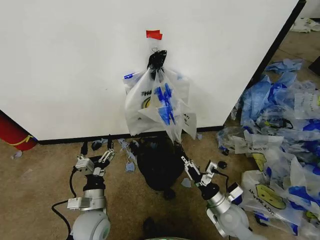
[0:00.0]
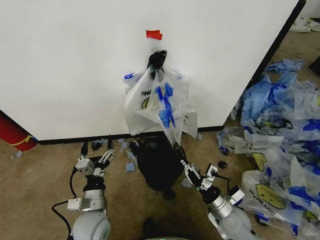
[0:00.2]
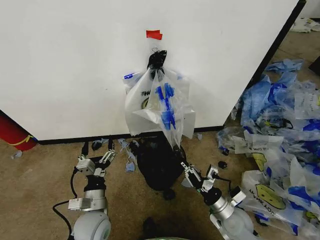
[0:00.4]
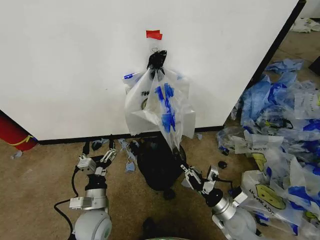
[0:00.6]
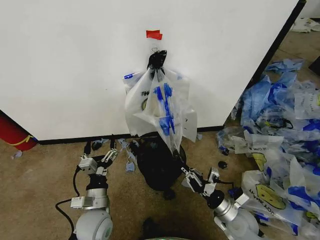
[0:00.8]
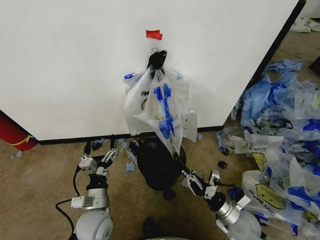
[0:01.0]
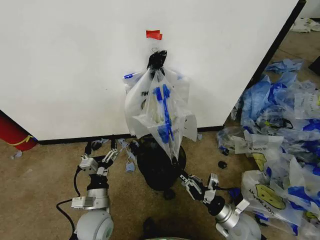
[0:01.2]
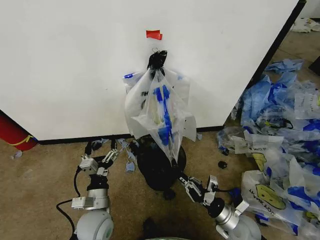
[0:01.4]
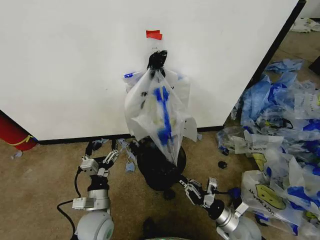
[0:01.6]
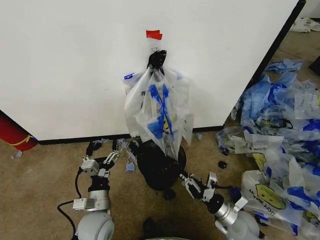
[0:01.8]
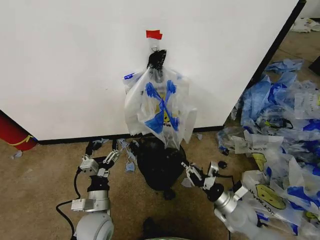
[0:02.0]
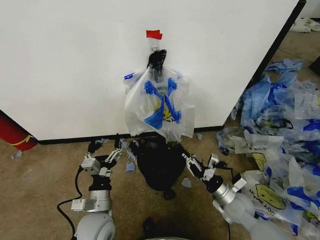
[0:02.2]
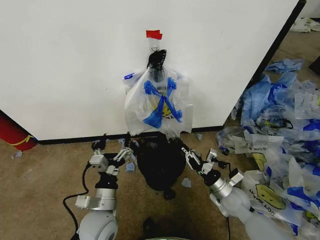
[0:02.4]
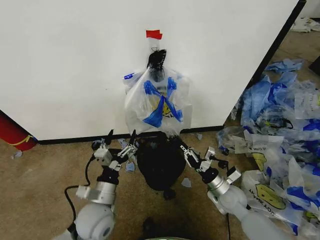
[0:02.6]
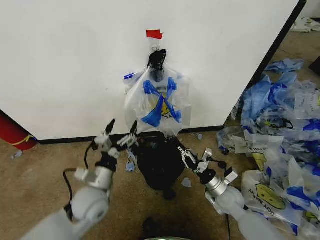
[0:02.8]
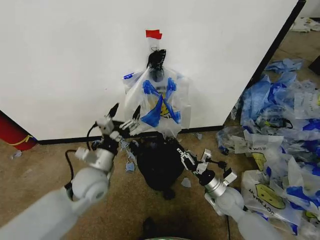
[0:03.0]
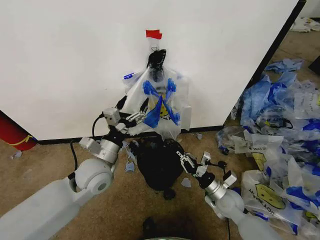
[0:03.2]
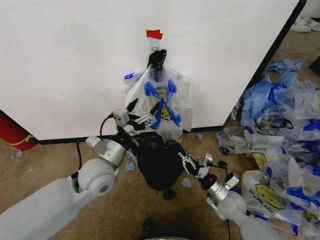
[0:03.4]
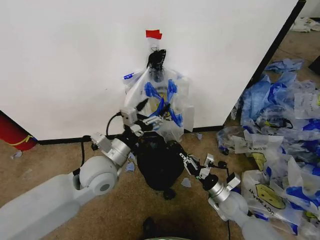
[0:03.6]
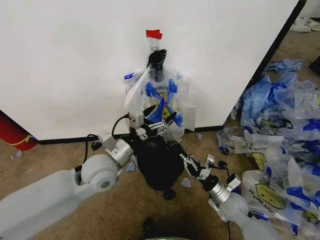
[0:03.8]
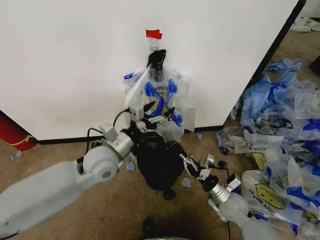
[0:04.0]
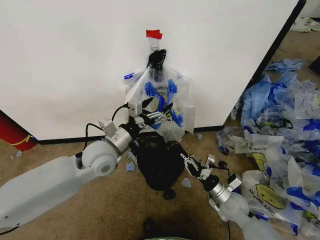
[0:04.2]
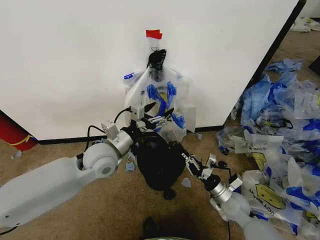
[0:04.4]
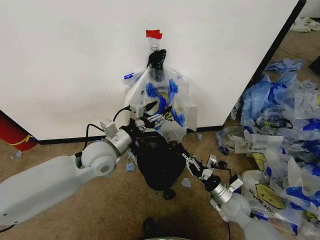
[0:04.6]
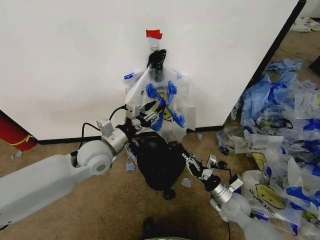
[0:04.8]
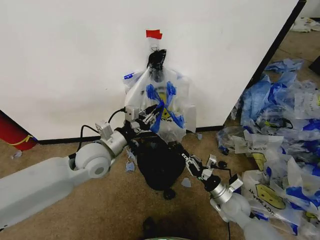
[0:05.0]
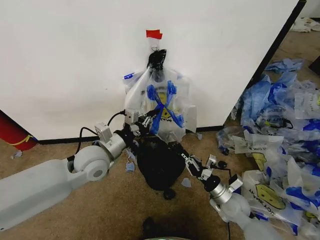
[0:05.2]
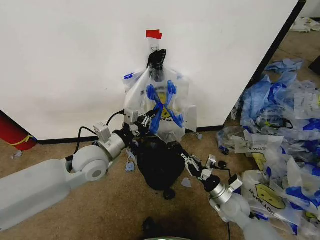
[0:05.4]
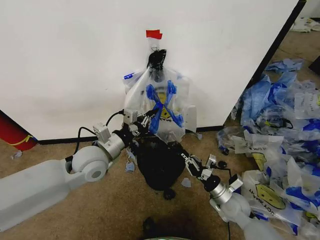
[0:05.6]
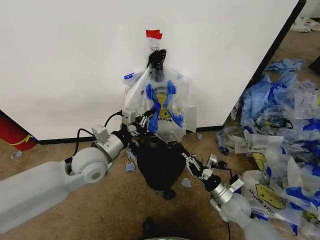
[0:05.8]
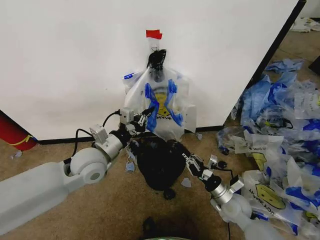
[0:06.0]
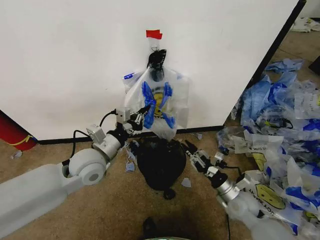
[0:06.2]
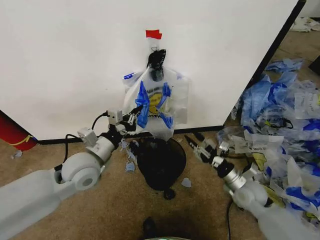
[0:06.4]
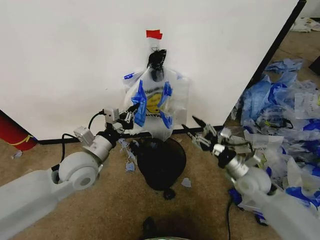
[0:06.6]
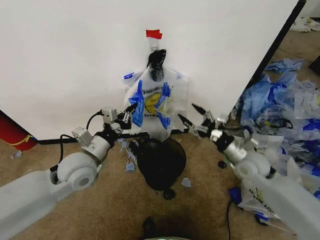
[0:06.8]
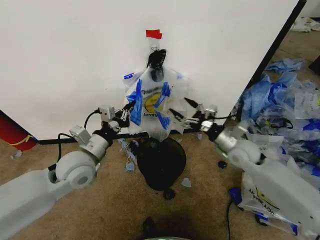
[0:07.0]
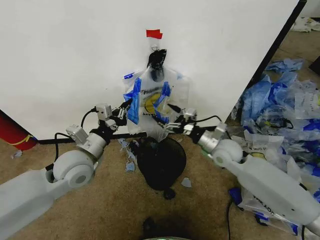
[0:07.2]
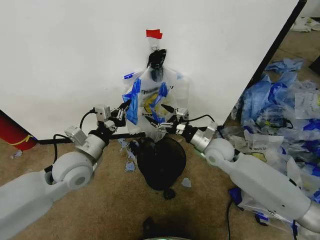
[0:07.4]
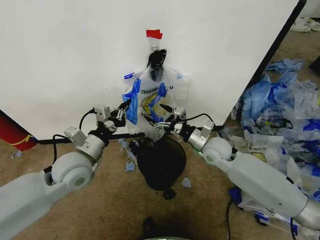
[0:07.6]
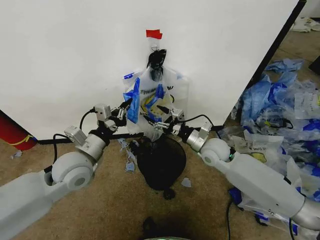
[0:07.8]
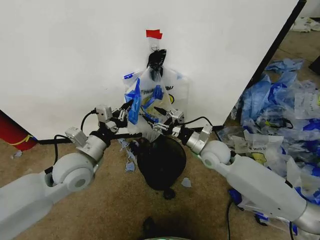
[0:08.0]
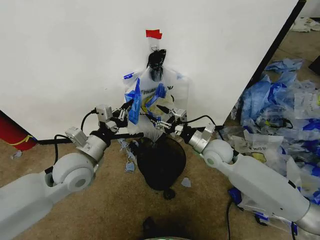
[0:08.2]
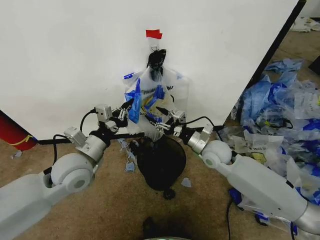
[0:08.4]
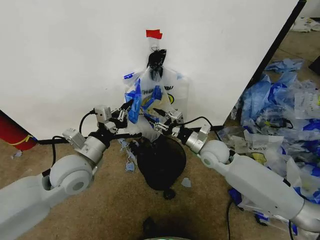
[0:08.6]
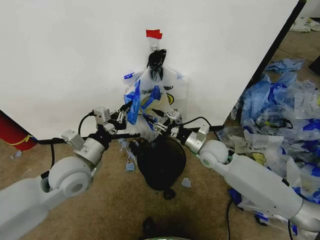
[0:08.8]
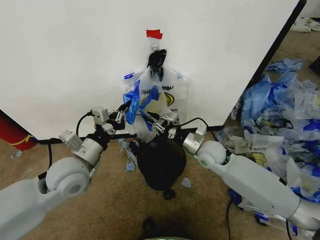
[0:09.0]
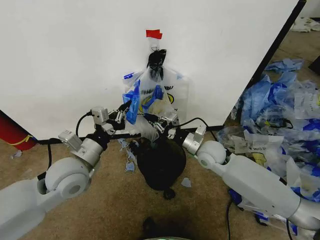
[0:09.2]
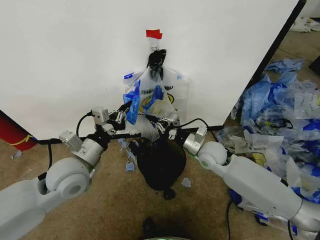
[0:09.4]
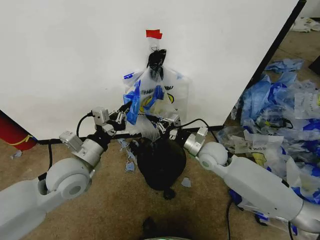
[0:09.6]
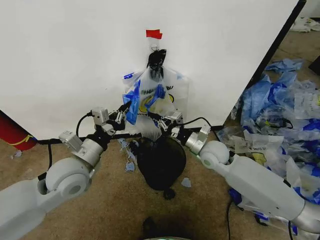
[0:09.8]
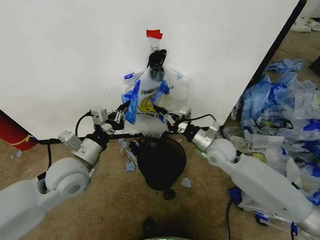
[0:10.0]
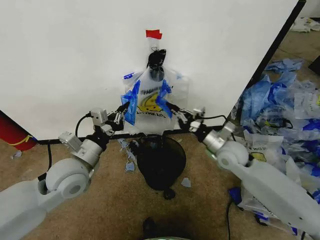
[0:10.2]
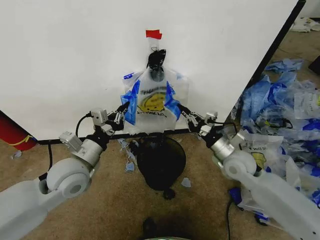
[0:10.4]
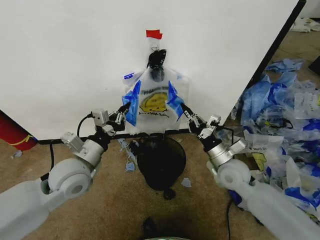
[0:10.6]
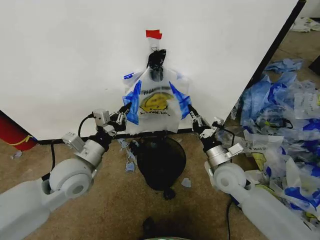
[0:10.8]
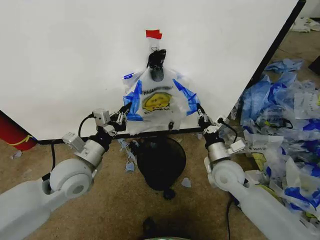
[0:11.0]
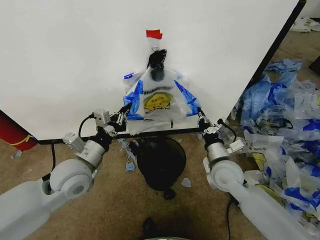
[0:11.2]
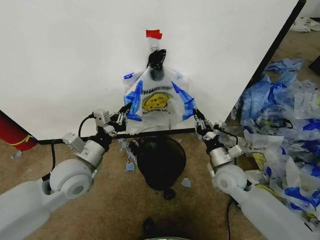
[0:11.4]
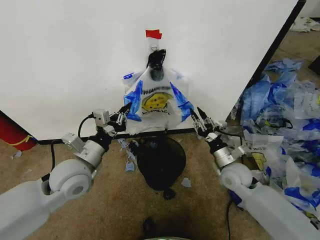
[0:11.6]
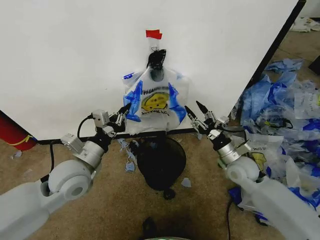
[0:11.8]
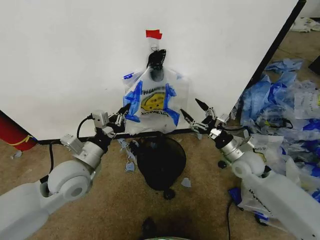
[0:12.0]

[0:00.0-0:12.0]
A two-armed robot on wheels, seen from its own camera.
Task of the whole recording: Pick up the garbage bag from the wall and place it over the trash bin.
0:00.0 to 0:01.6: The right gripper changes place by roughly 5 cm.
0:01.6 to 0:03.0: The right gripper moves forward, some 10 cm. Meanwhile the left gripper heads upward and forward, covering about 10 cm.
0:03.0 to 0:04.4: The left gripper travels upward and forward by about 10 cm.
0:04.4 to 0:06.0: The left gripper closes.
0:06.0 to 0:07.6: The right gripper heads upward, forward and to the left, covering some 20 cm, and opens up.
0:07.6 to 0:09.0: The right gripper closes its fingers.
0:09.0 to 0:10.4: The right gripper is displaced to the right by some 10 cm.
0:10.4 to 0:12.0: The right gripper opens.

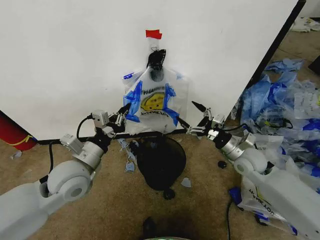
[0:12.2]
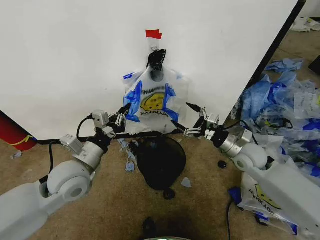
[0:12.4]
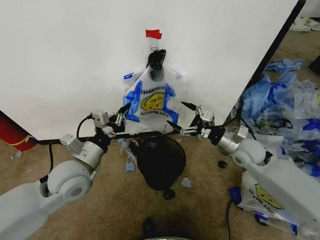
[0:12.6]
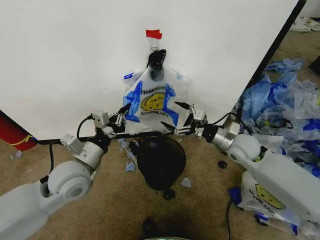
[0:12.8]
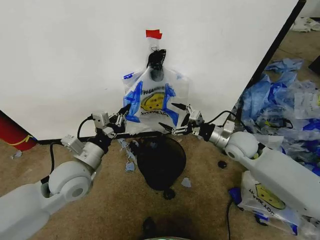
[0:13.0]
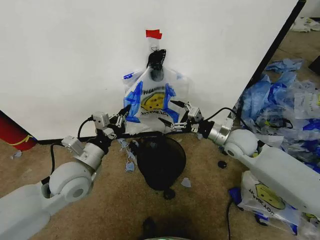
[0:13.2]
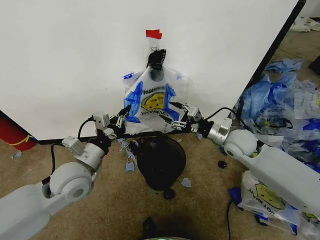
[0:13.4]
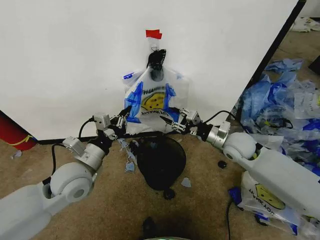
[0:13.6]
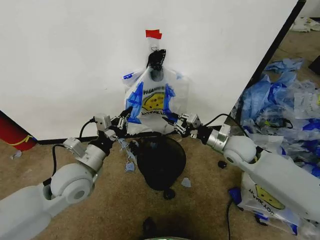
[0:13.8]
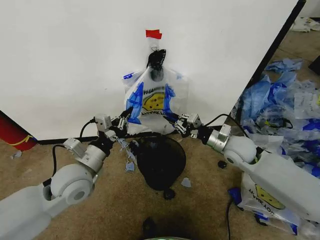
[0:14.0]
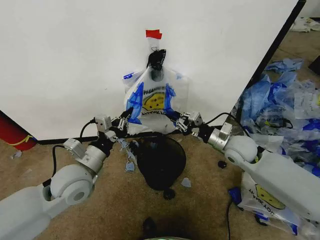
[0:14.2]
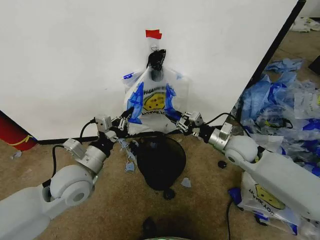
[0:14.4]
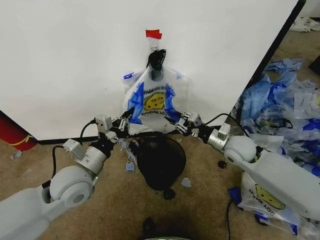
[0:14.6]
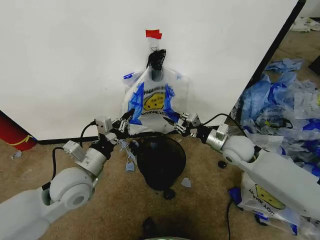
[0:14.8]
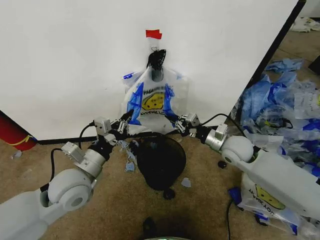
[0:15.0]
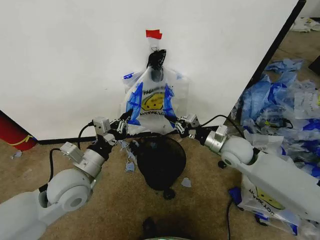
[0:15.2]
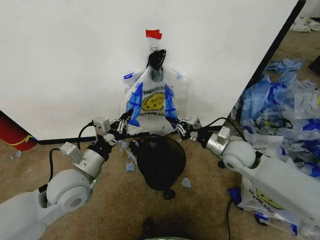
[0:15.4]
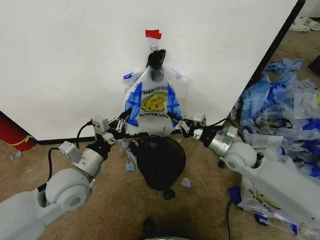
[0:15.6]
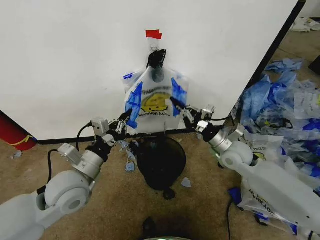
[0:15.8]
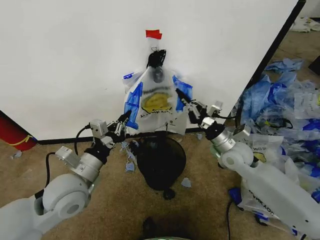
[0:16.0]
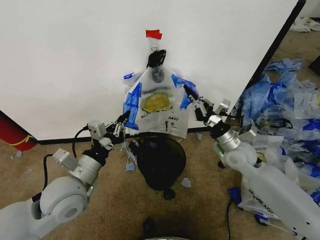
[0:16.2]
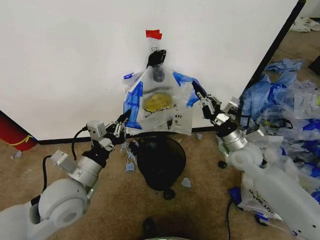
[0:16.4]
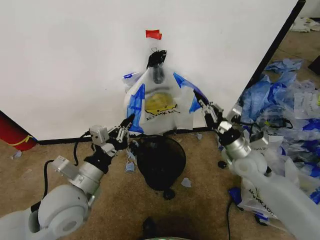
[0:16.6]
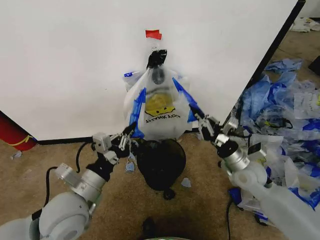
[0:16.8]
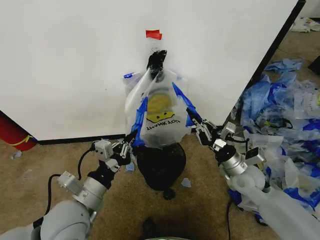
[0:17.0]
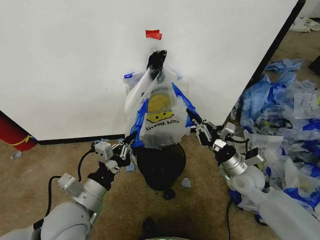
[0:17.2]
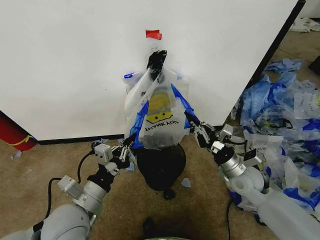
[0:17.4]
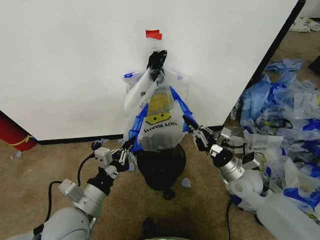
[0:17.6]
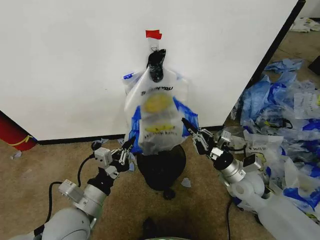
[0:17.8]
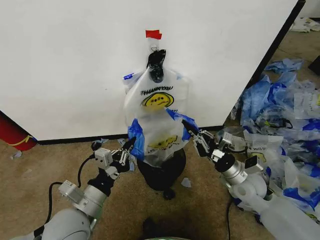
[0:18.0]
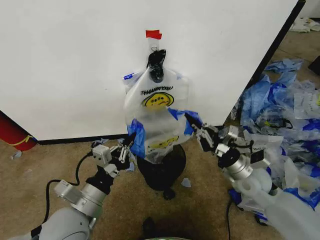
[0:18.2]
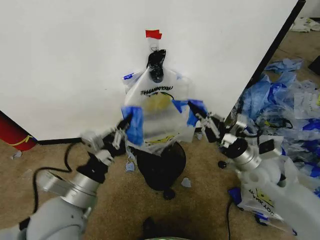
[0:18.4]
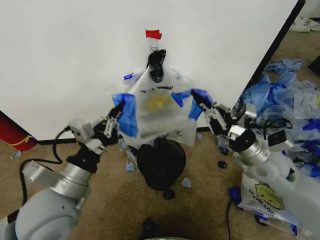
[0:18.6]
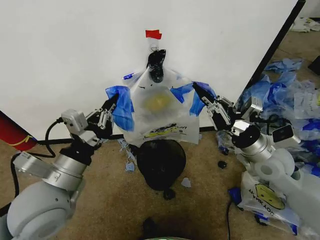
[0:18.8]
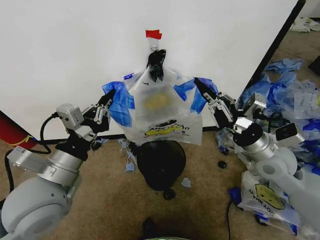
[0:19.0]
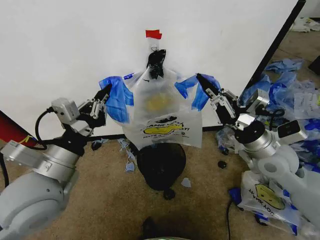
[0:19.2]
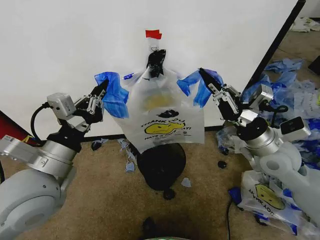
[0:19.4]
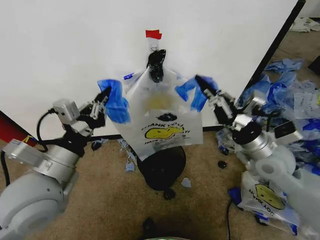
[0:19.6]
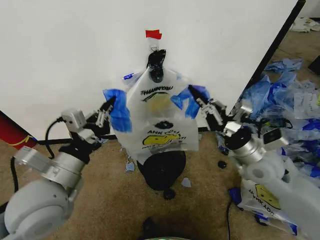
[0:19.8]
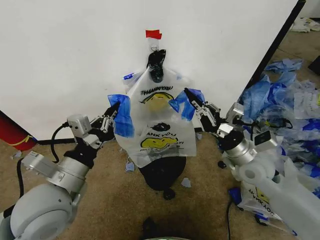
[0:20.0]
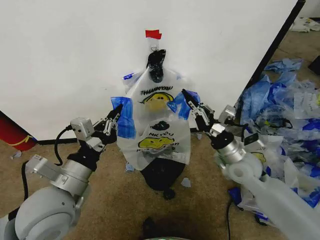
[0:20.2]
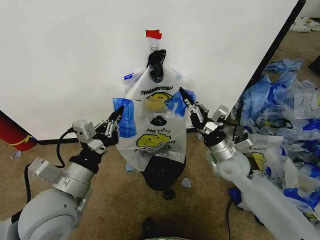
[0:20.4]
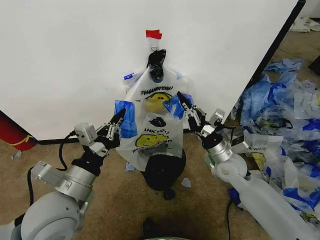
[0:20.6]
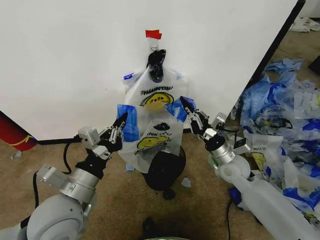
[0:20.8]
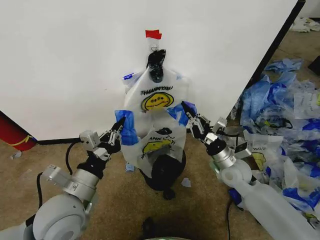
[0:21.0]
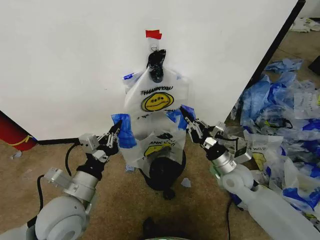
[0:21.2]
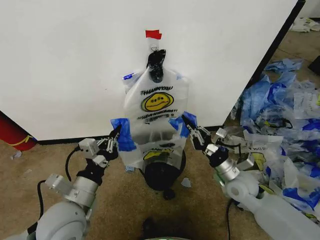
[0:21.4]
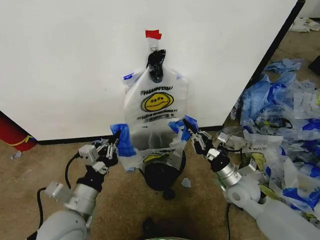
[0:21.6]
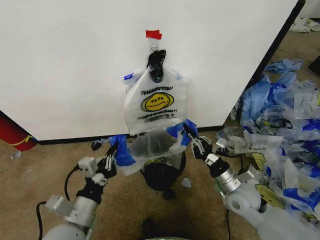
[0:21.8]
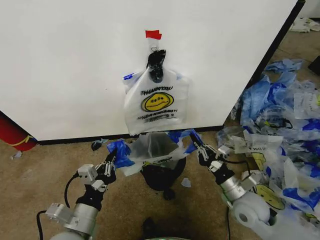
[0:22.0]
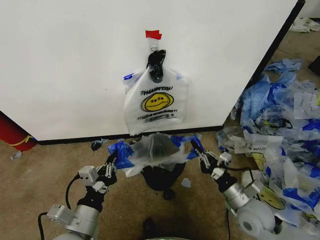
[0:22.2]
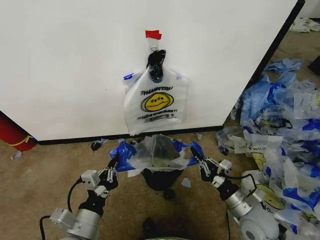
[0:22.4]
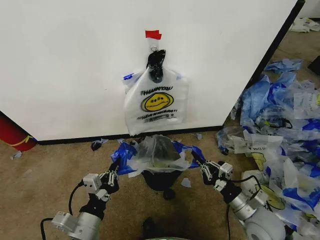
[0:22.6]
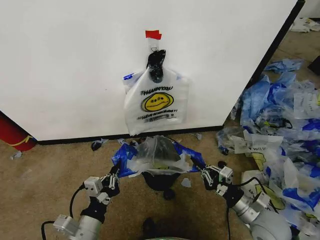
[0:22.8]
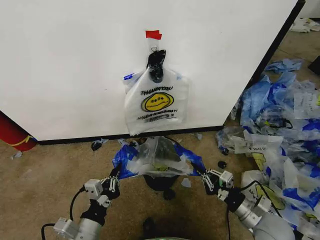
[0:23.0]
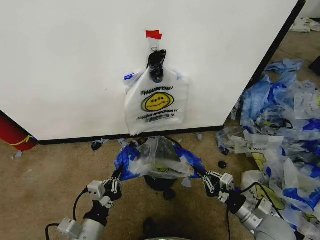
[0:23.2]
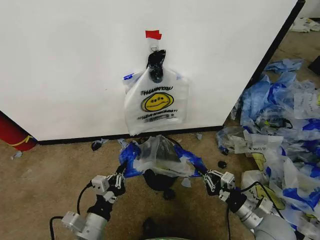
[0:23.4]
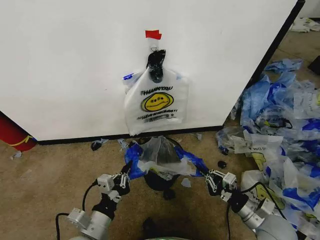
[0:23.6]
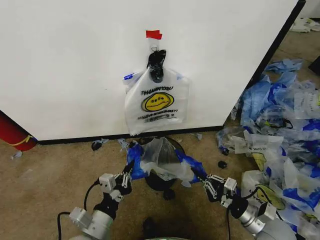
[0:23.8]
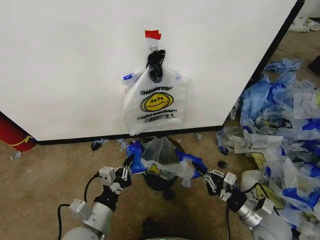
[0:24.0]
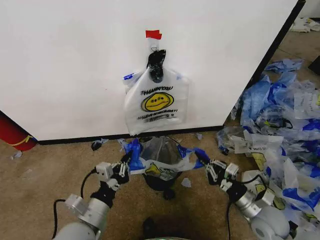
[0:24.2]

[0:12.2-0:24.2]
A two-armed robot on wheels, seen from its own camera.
Task of the whole recording: Pick up the garbage bag from the wall and place it over the trash bin.
0:12.2 to 0:13.8: The right gripper ends up about 5 cm from where it was, and closes its fingers.
0:13.8 to 0:15.2: The grippers stay close to where they were, moving slightly.
0:15.2 to 0:16.6: The right gripper changes place by some 5 cm, while the left gripper shifts about 5 cm backward.
0:16.6 to 0:18.2: The left gripper ends up roughly 5 cm from where it was. Meanwhile the right gripper ends up about 5 cm from where it was.
0:18.2 to 0:19.8: The grippers both shift upward by some 10 cm.
0:19.8 to 0:21.2: The two grippers go about 10 cm downward.
0:21.2 to 0:22.6: The right gripper is displaced backward by roughly 15 cm; the left gripper heads downward and backward, covering about 10 cm.
0:22.6 to 0:24.2: The grippers stay close to where they were, moving slightly.
